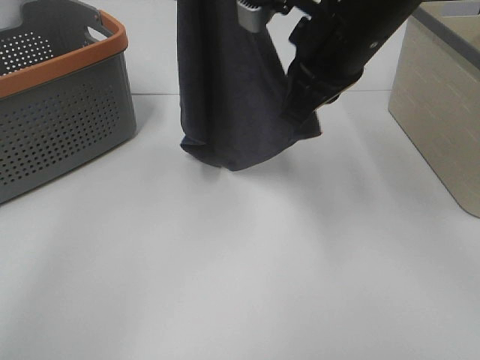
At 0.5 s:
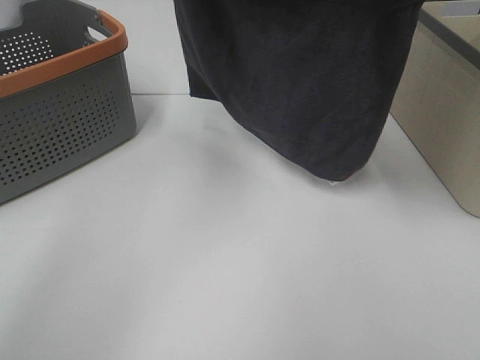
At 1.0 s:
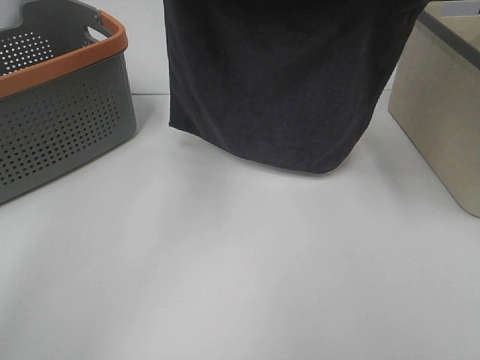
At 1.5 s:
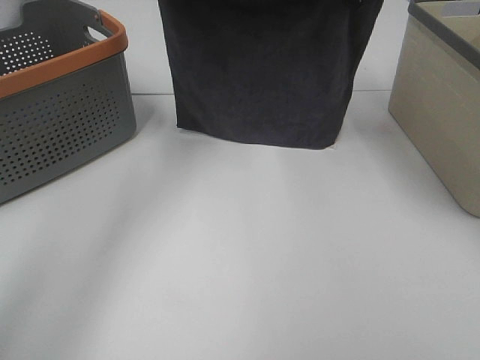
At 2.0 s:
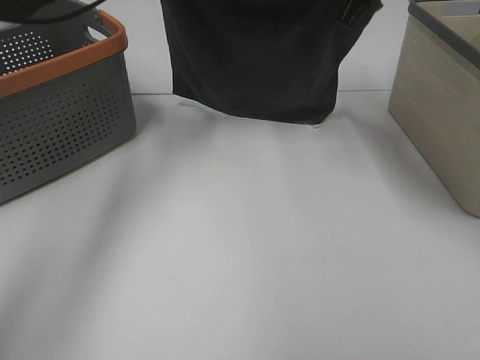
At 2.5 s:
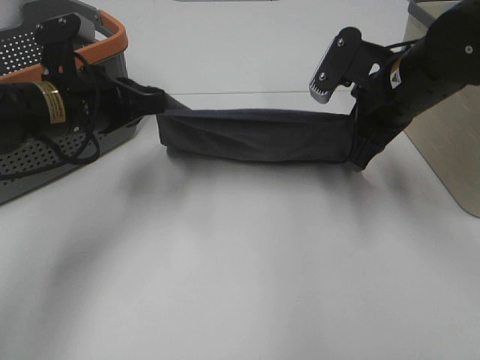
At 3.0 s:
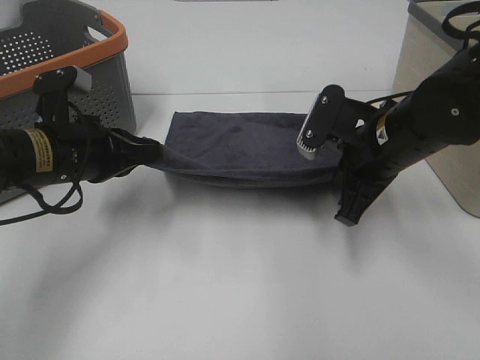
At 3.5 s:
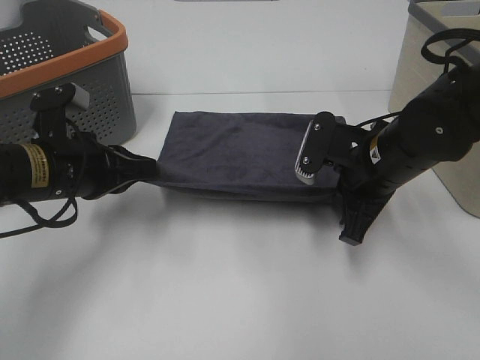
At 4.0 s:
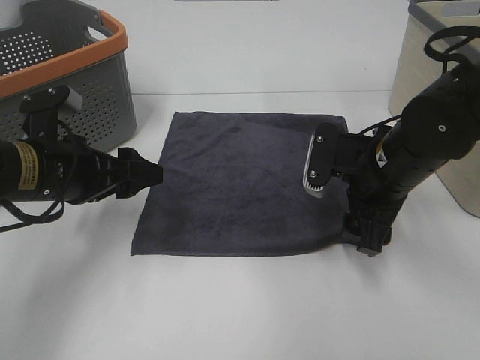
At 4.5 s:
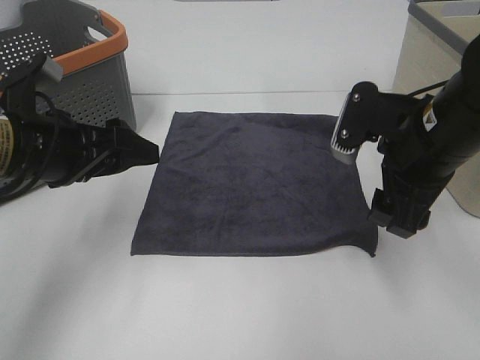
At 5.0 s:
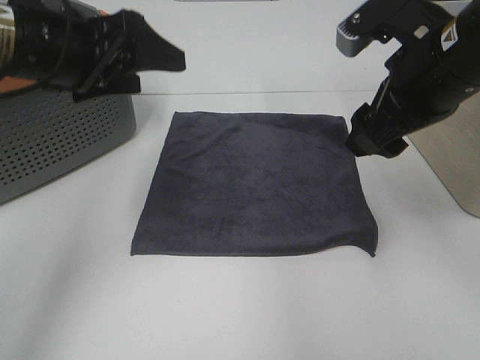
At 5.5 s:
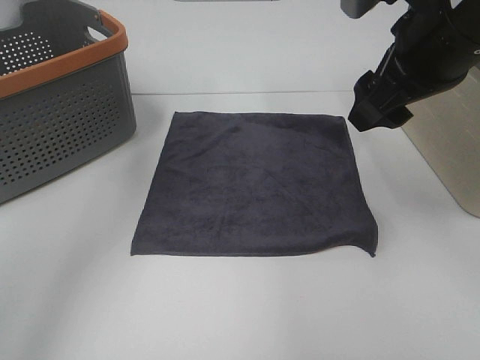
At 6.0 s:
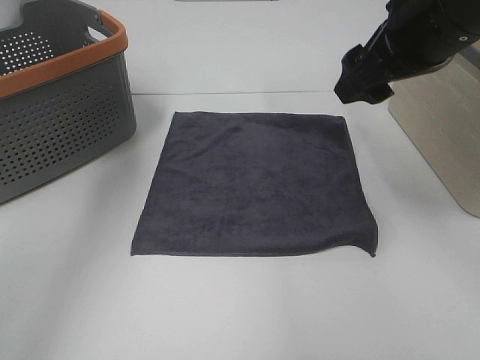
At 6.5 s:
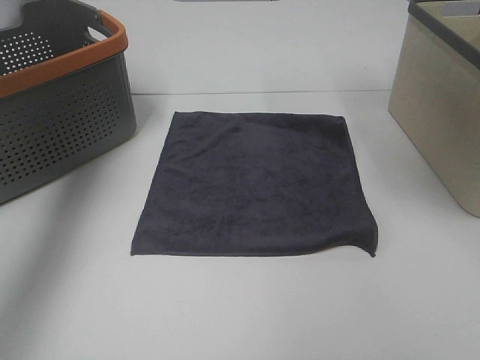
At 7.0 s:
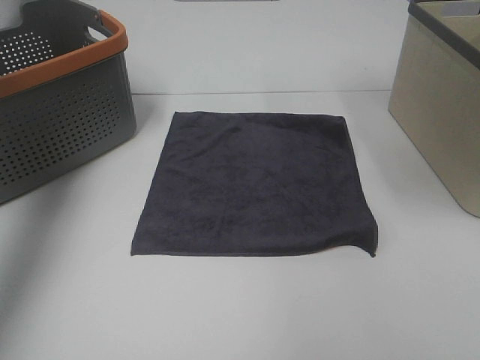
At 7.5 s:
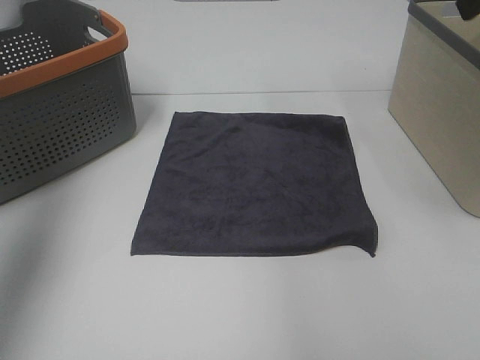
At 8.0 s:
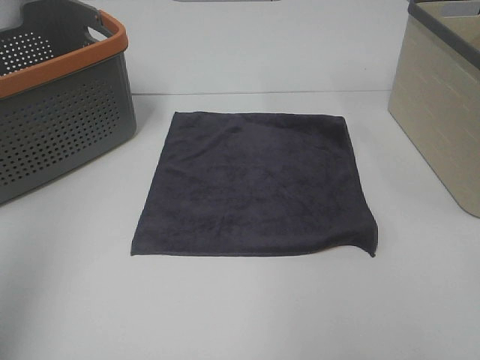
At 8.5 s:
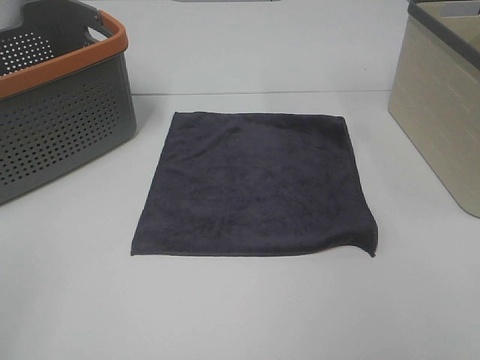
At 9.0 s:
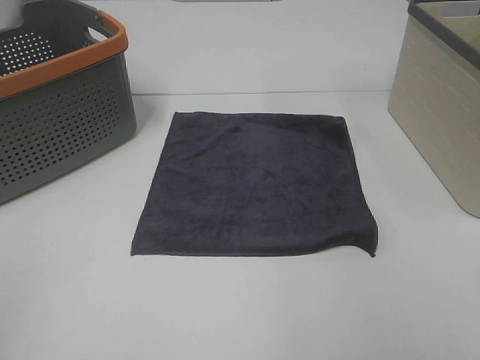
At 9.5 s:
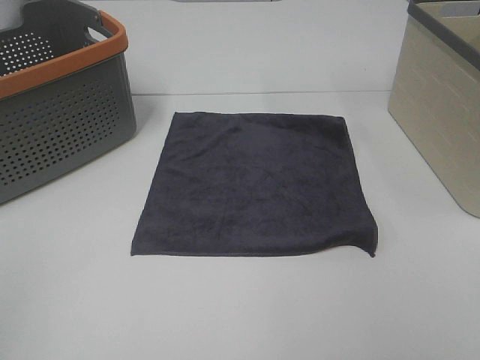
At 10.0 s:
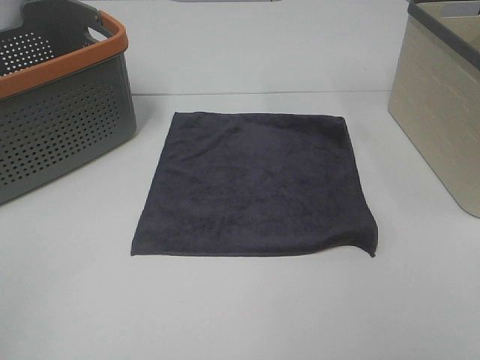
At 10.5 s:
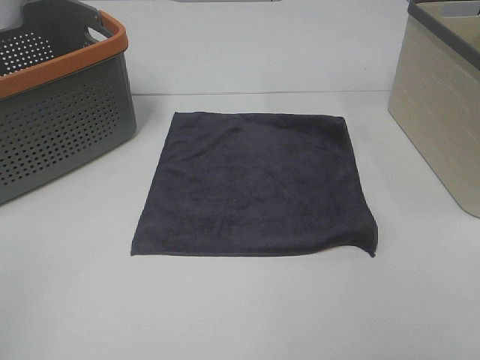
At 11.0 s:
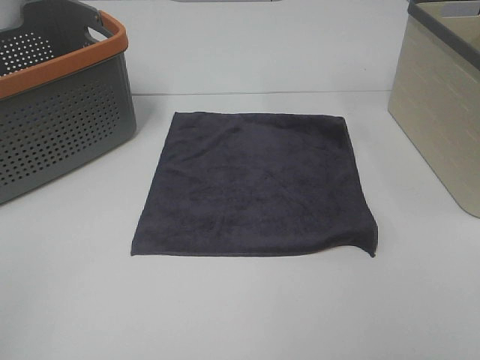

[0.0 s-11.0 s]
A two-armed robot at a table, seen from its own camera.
Task of the whole recording: Remove the towel and place it.
0.0 to 2.0 s: The left gripper shifts roughly 15 cm downward, while the right gripper moves forward and to the right, approximately 10 cm.
2.0 to 3.5 s: The right gripper is displaced downward and backward by roughly 20 cm, while the left gripper heads backward and downward, covering about 20 cm.
3.5 to 5.5 s: Both grippers travel together upward, approximately 20 cm. The right gripper opens up, while the left gripper opens.
5.5 to 7.5 s: The right gripper heads upward and to the right, covering approximately 15 cm, while the left gripper shifts about 20 cm to the left and backward.
7.5 to 9.0 s: The left gripper moves backward and downward, some 25 cm.

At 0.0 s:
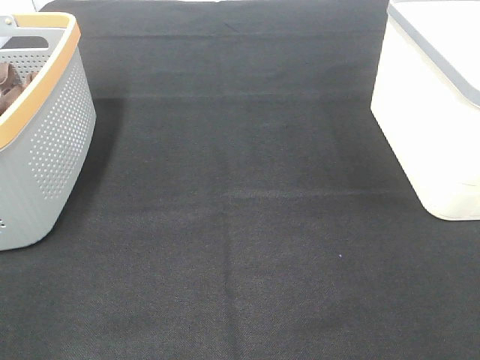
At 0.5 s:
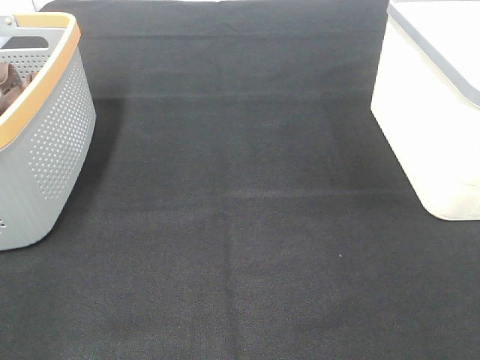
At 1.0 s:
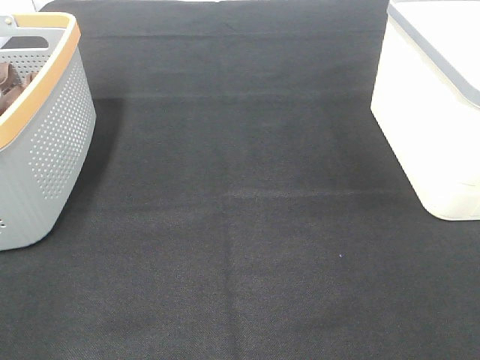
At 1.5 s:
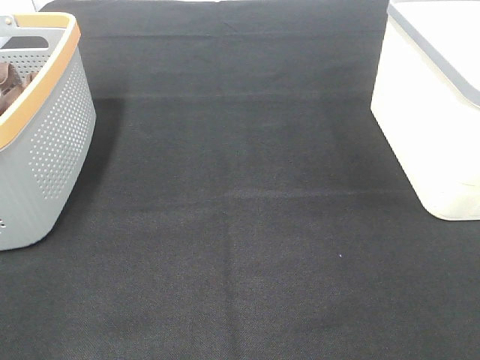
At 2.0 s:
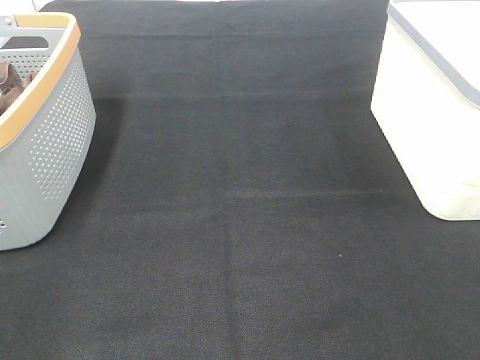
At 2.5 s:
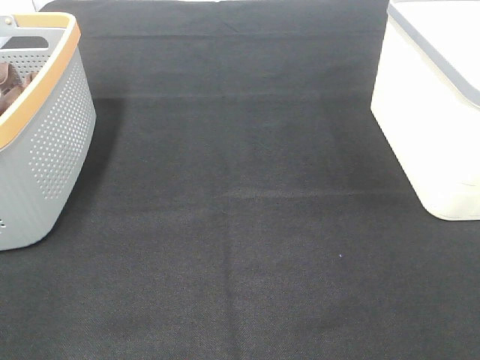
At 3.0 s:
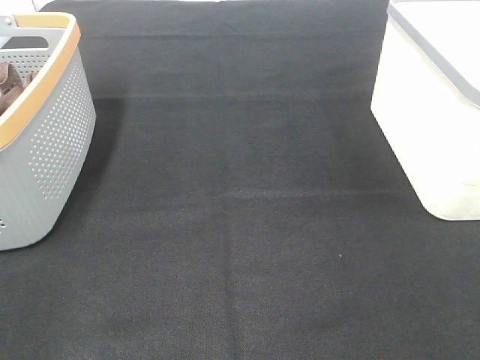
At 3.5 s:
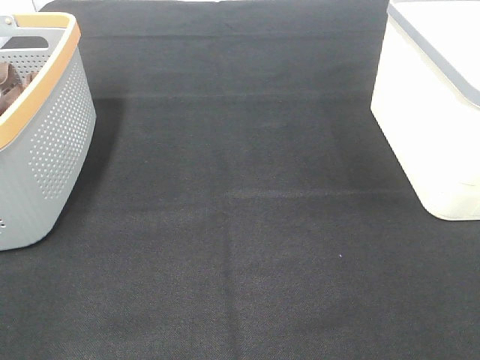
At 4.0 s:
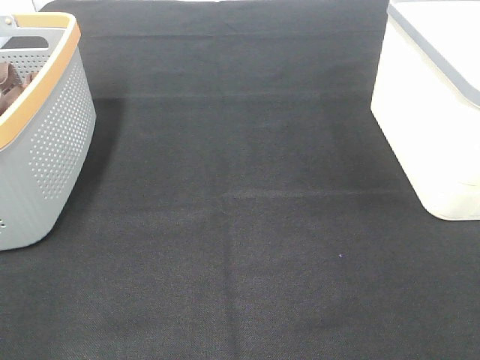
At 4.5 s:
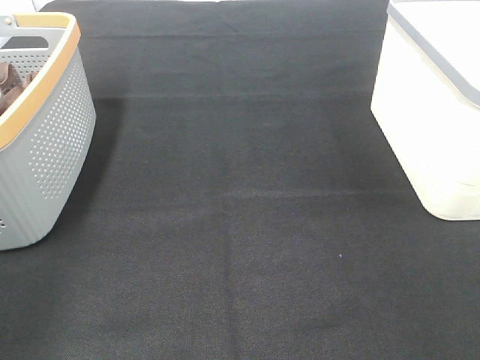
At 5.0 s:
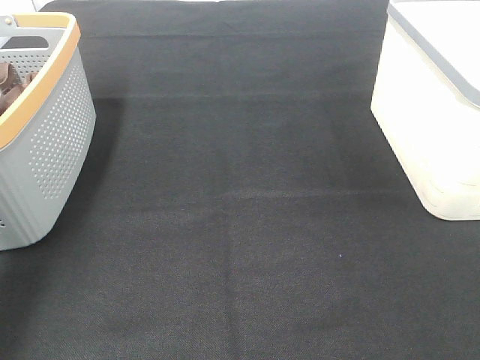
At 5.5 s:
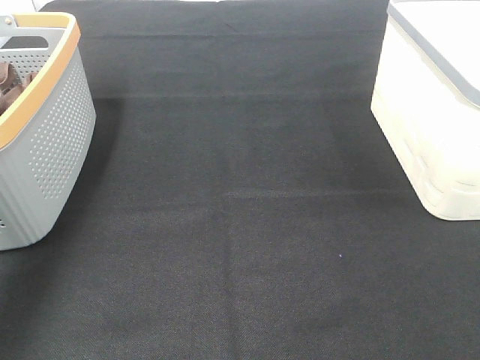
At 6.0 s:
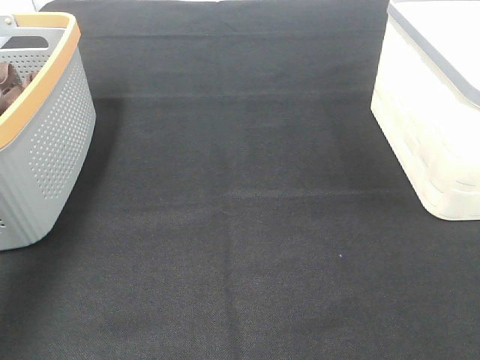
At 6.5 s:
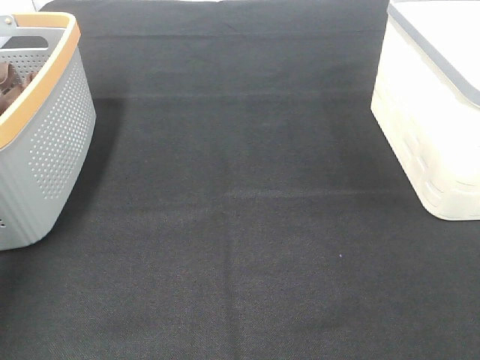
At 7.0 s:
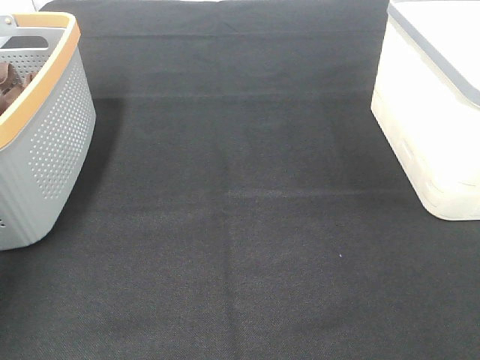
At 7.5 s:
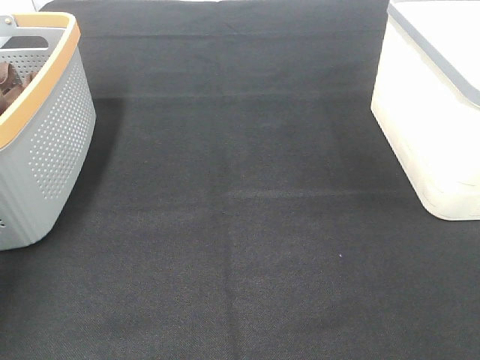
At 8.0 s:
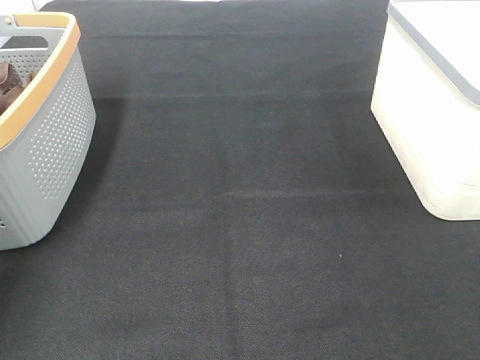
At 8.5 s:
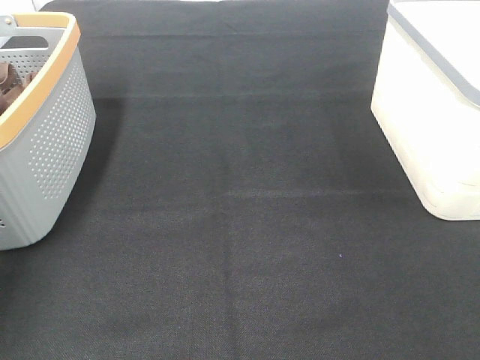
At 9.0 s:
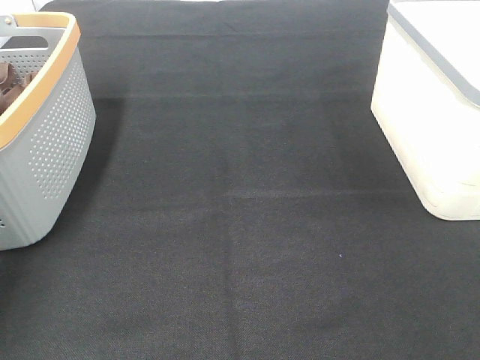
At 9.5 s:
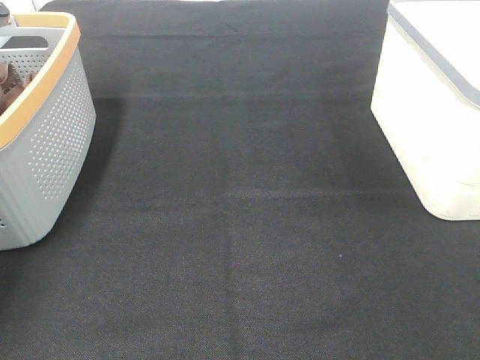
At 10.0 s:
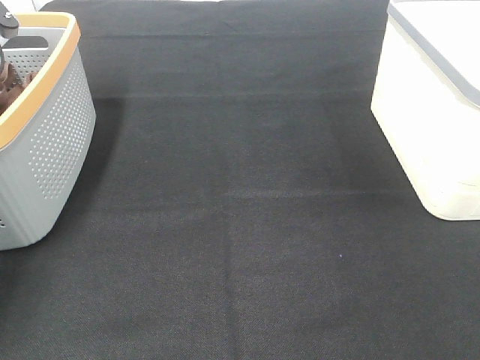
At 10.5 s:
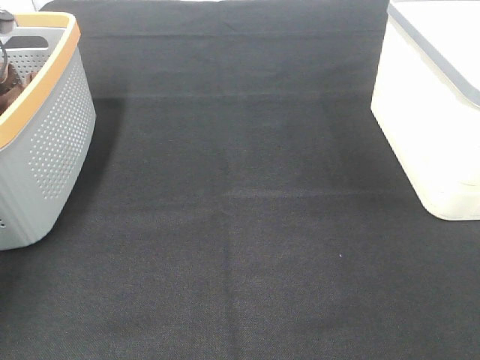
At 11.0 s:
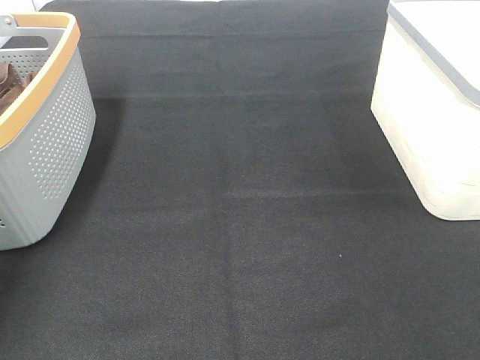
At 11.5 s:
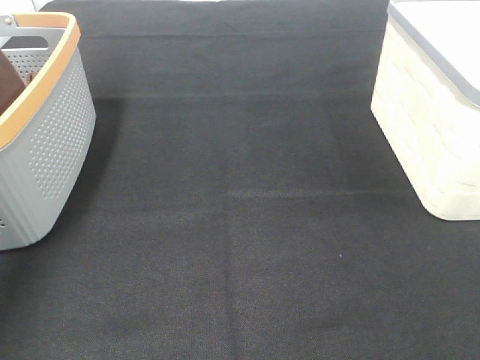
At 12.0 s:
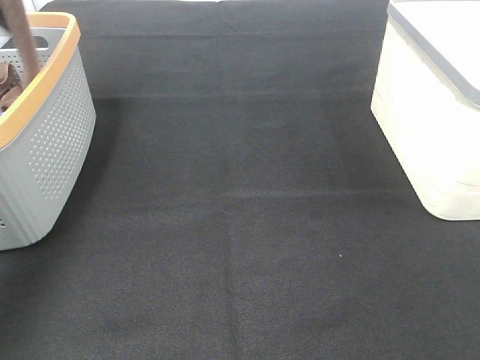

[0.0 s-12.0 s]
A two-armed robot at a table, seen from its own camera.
Task of the whole recording: Remove the towel and place it.
0.0 to 2.0 s: Both grippers stay put.
4.0 to 6.0 s: The left gripper goes roughly 35 cm forward.
10.0 to 12.0 s: The left gripper moves upward and backward, approximately 35 cm.

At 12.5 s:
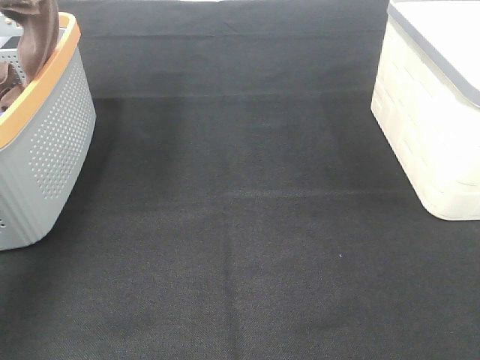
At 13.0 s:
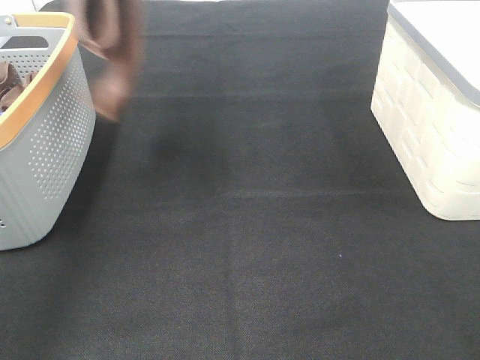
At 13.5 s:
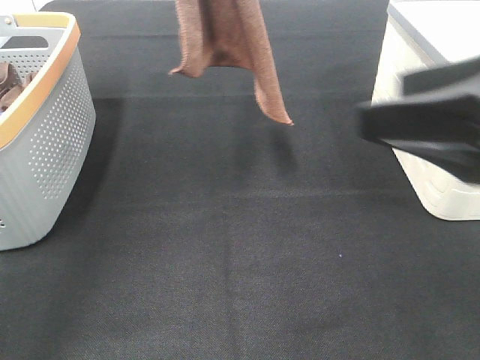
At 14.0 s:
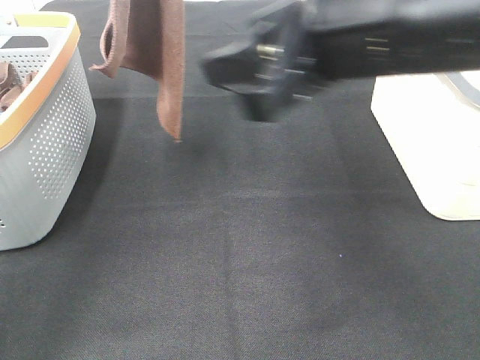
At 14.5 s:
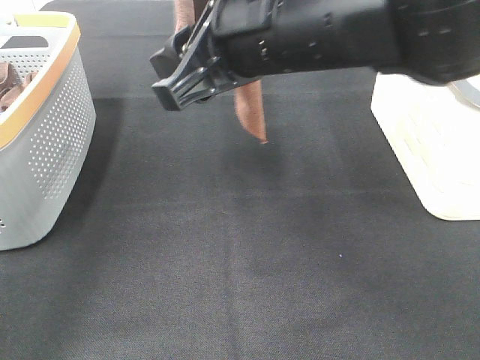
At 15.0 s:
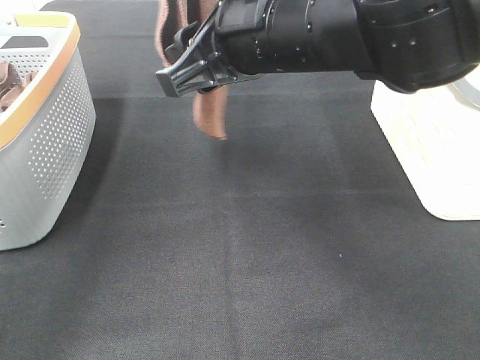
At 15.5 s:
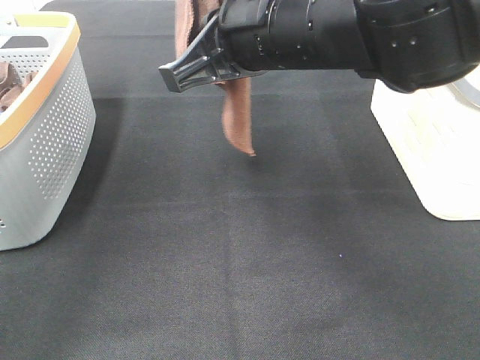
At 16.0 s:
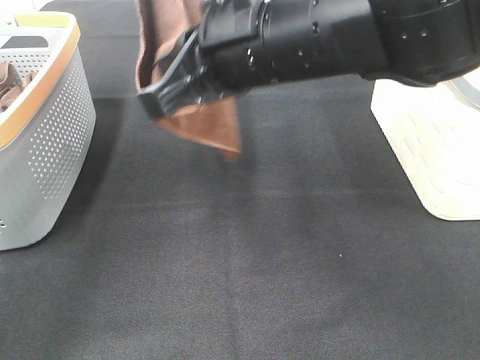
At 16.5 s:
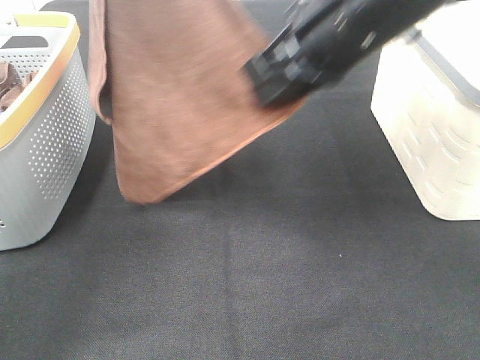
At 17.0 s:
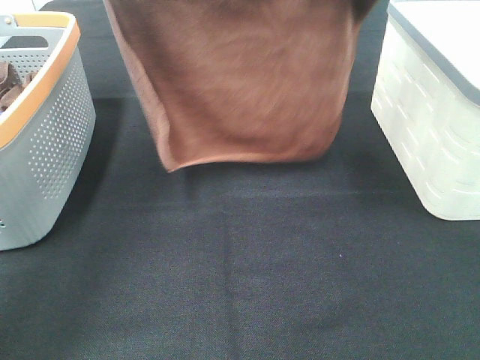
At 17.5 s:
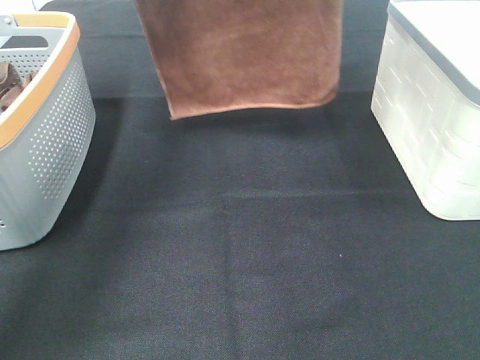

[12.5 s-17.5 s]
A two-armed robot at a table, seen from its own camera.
Task of the whole recording: Remove the towel and place it.
Step, 14.0 to 16.5 s: Left hand: spread the brown towel flat on the table.
Step, 14.0 to 16.5 s: Right hand: spread the brown towel flat on the table.
12.5 to 15.0 s: The right gripper shifts about 35 cm forward and to the left, while the left gripper goes roughly 10 cm to the right.
15.0 to 17.5 s: The right gripper moves forward, to the right and upward, roughly 20 cm, and closes. The left gripper goes approximately 20 cm downward and forward.
